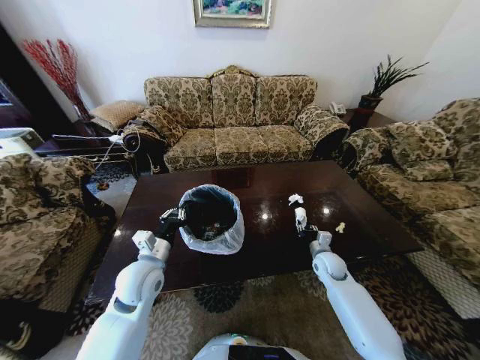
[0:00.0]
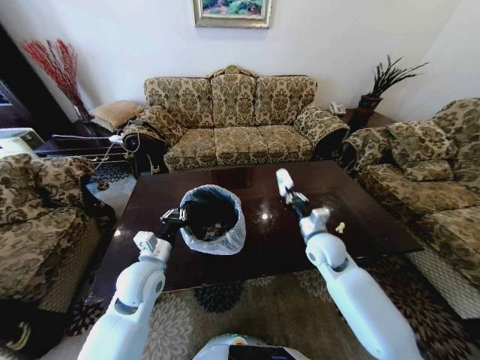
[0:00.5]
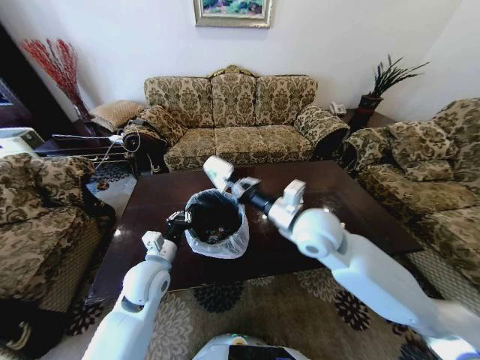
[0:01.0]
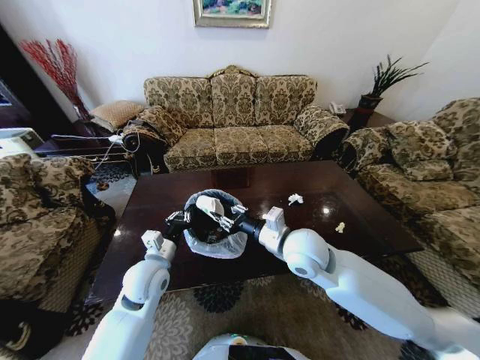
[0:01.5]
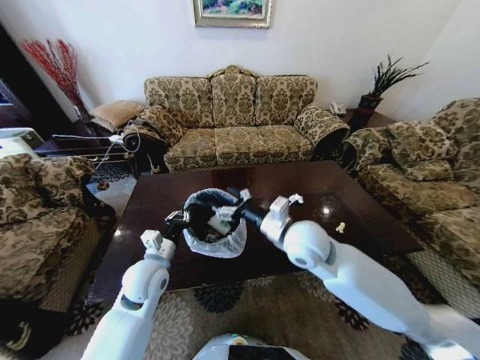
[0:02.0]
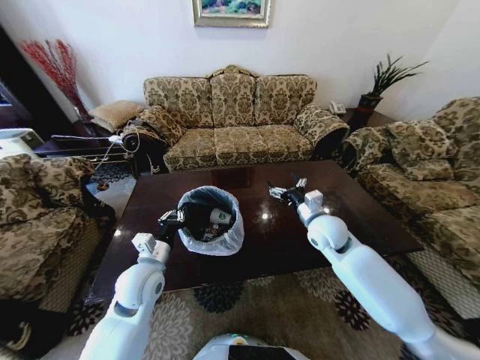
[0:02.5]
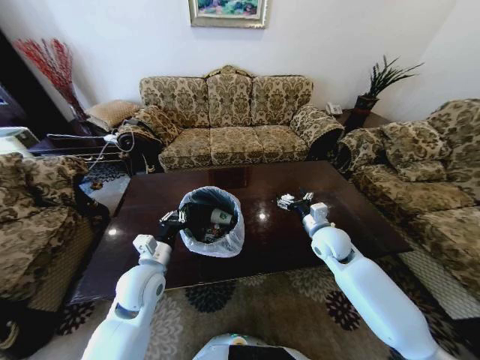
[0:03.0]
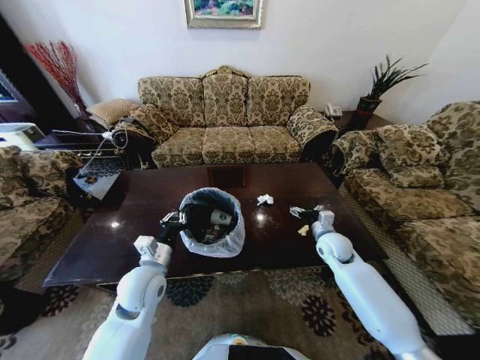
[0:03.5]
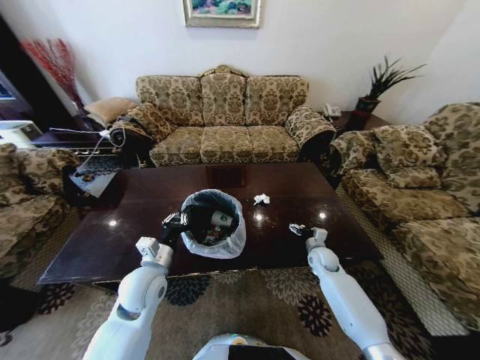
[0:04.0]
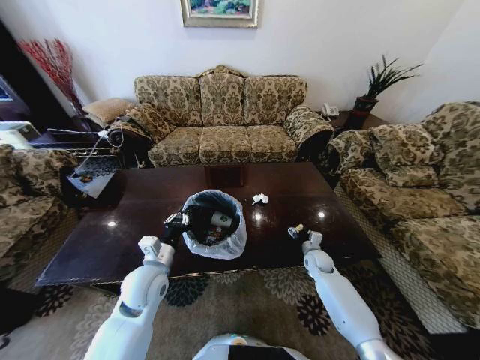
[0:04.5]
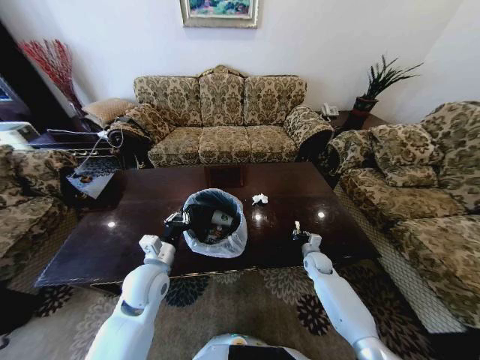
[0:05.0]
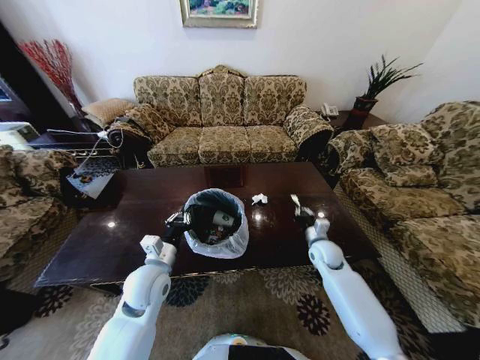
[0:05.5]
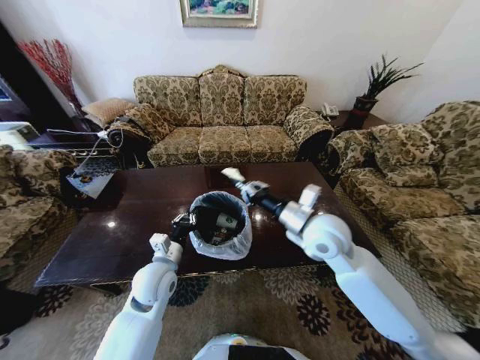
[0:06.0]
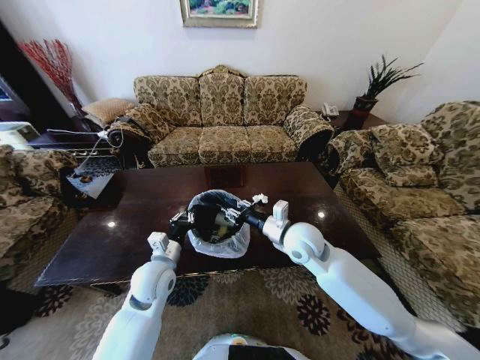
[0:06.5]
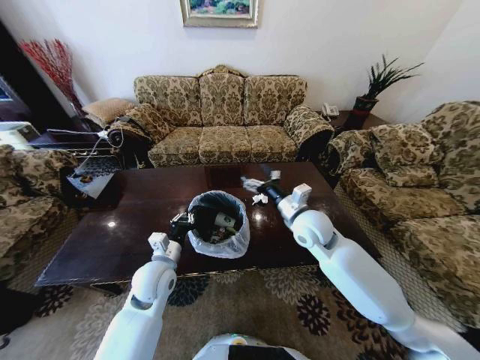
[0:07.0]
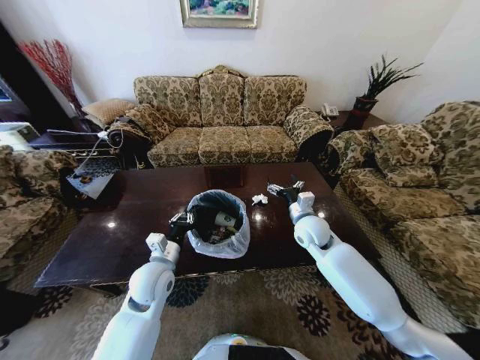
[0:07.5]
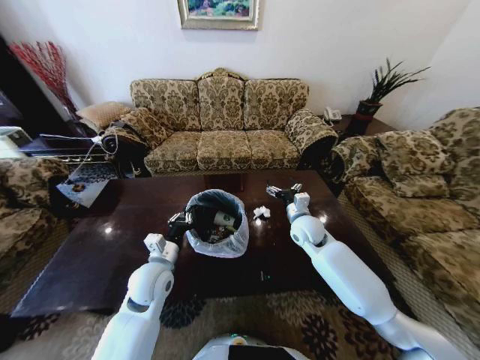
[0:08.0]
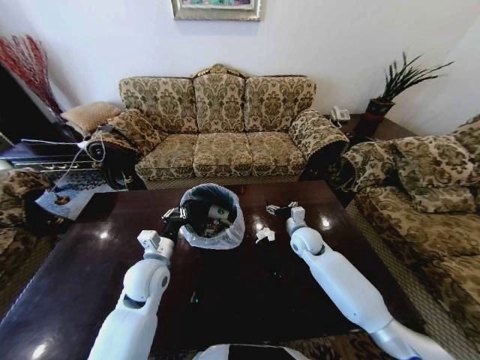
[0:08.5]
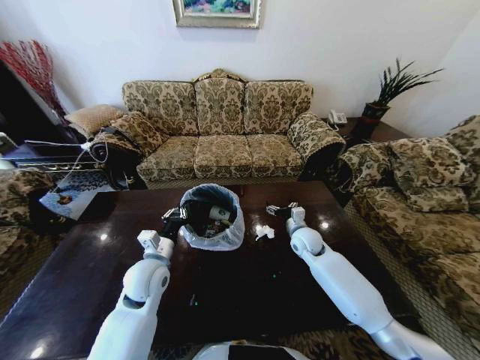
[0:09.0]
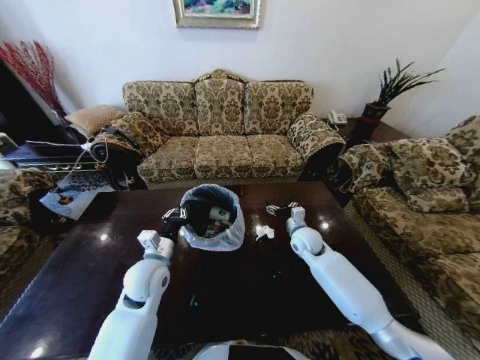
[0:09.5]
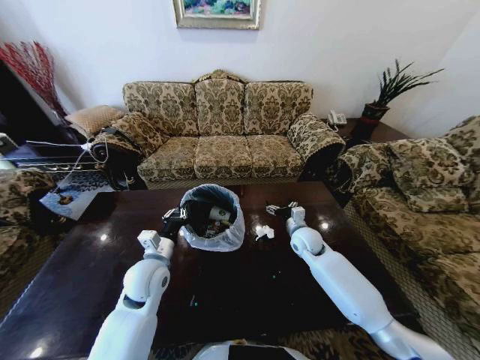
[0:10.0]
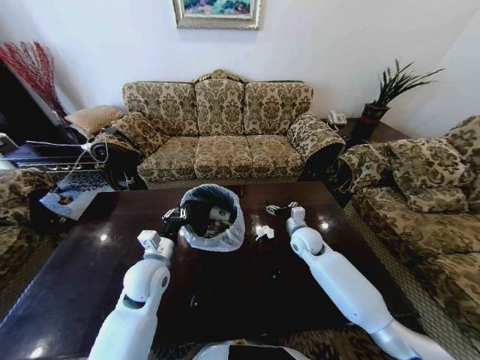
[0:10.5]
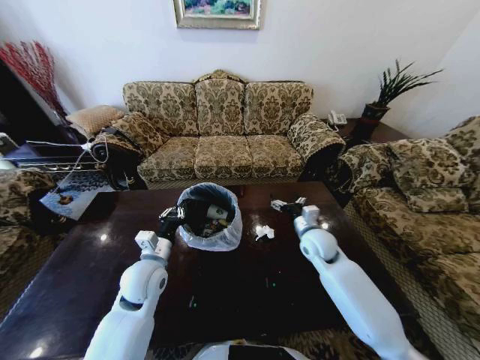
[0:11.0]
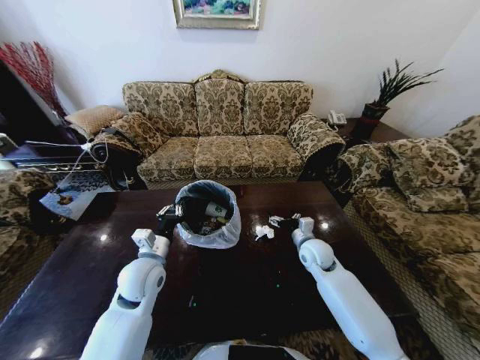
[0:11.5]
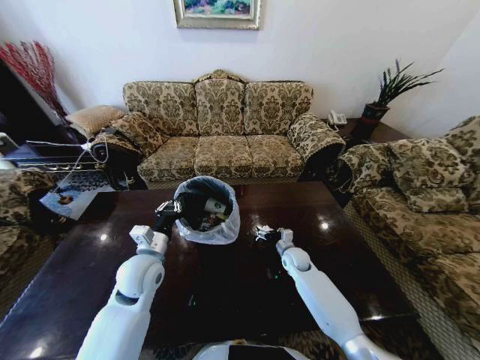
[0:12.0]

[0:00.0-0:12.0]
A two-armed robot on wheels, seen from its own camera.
Task of the whole recording: Move to the front of the table and place the trash on the table into the trash bin.
0:00.0 to 0:02.0: The right gripper goes some 30 cm upward and to the left, and opens its fingers.
0:02.0 to 0:04.0: The right gripper is displaced downward and to the right by approximately 35 cm.
0:04.0 to 0:06.0: The right gripper shifts some 30 cm upward and to the left, and closes up.
0:06.0 to 0:08.0: The right gripper heads downward and forward, covering roughly 15 cm, and opens up.
0:08.0 to 0:10.0: The right gripper goes approximately 5 cm downward.
0:10.0 to 0:12.0: The right gripper shifts about 10 cm downward.

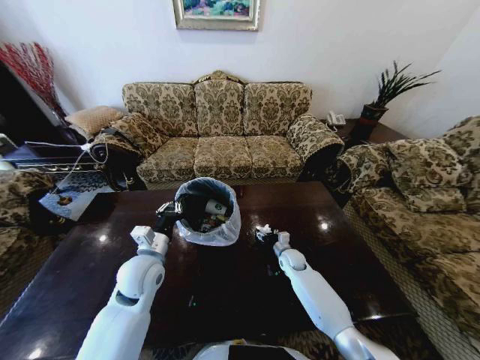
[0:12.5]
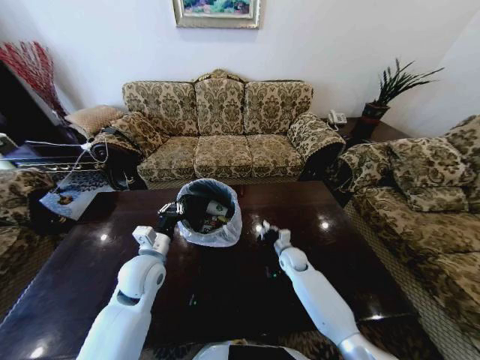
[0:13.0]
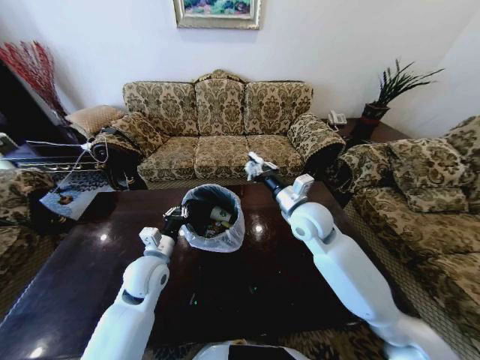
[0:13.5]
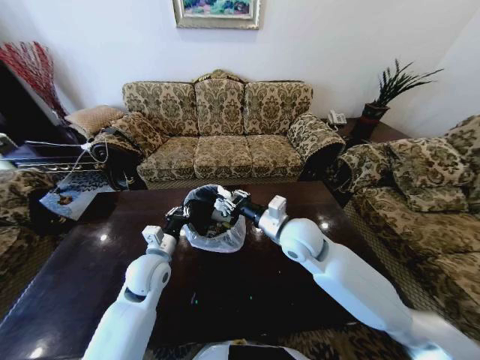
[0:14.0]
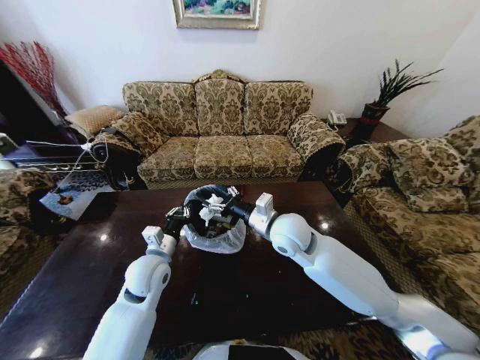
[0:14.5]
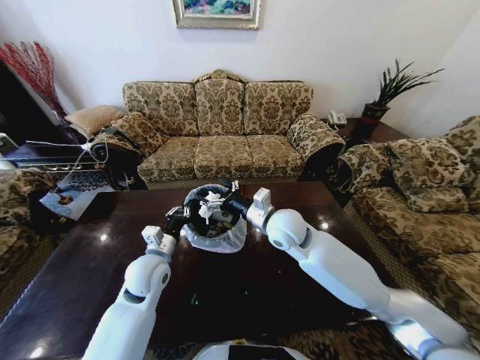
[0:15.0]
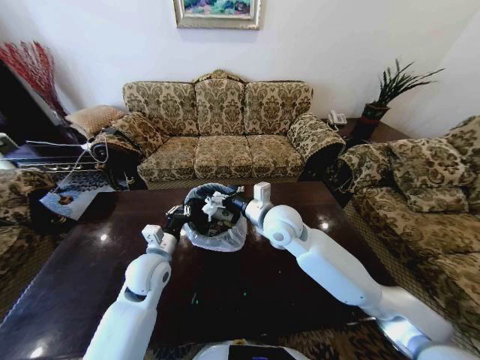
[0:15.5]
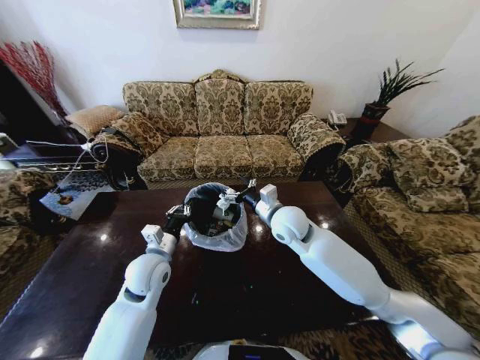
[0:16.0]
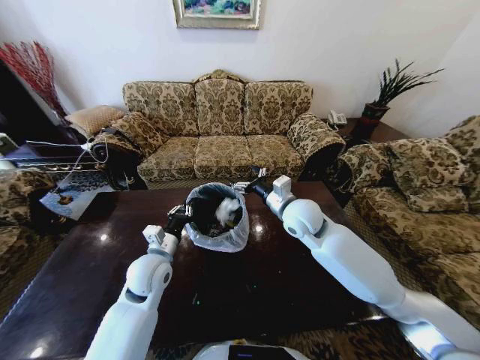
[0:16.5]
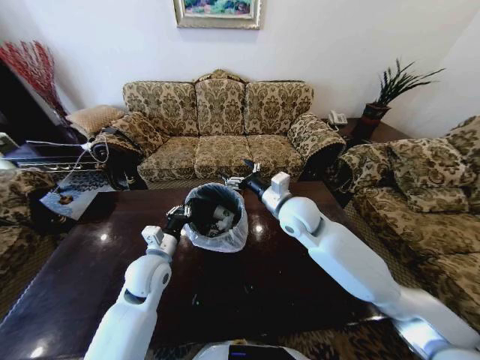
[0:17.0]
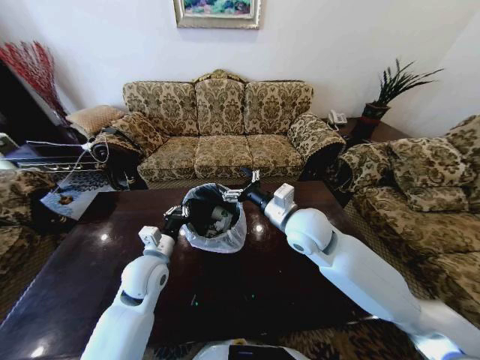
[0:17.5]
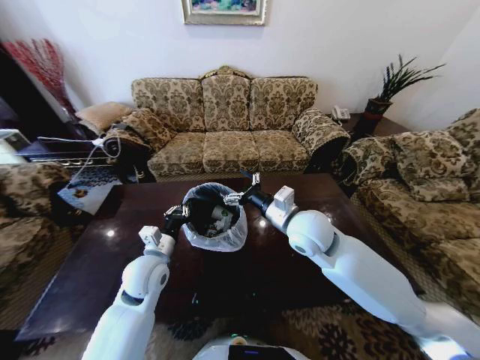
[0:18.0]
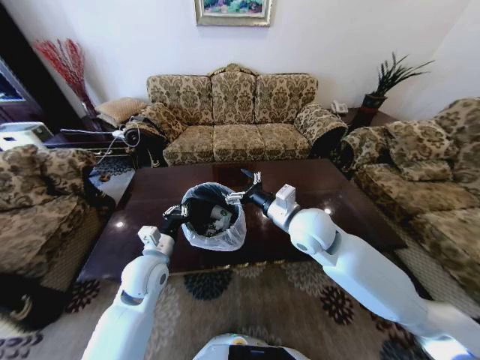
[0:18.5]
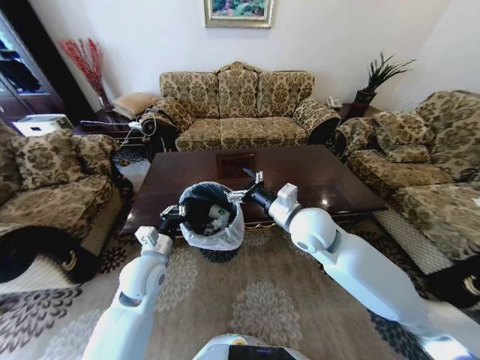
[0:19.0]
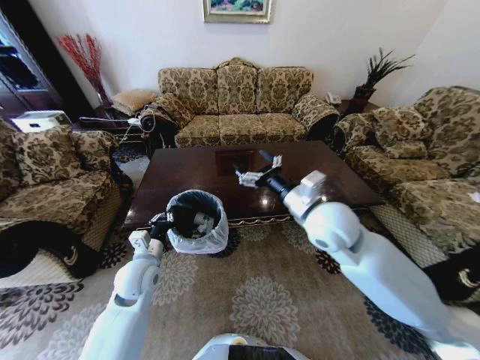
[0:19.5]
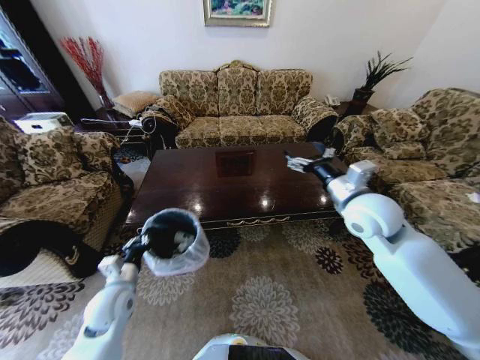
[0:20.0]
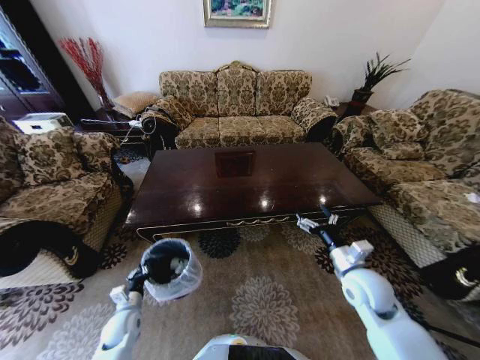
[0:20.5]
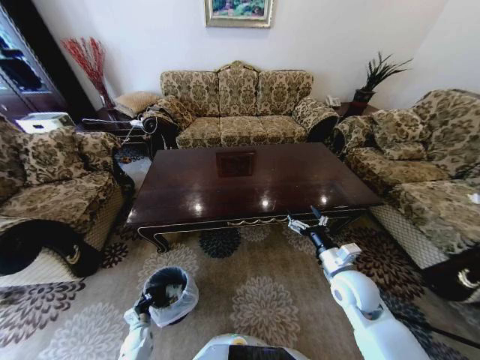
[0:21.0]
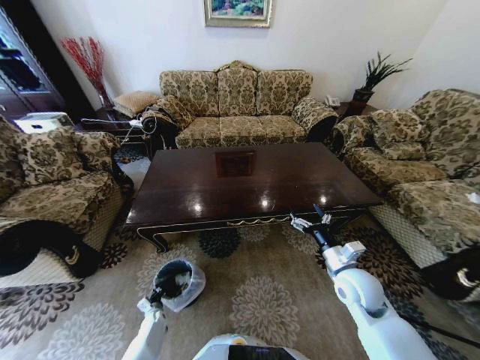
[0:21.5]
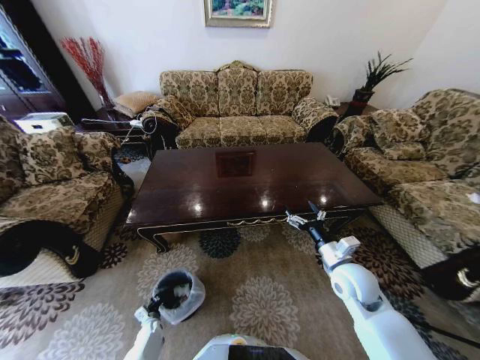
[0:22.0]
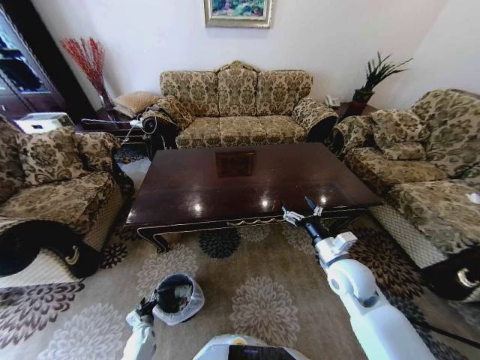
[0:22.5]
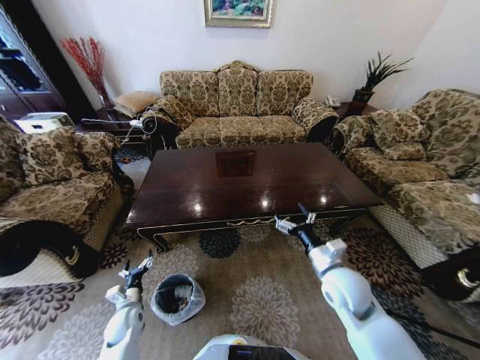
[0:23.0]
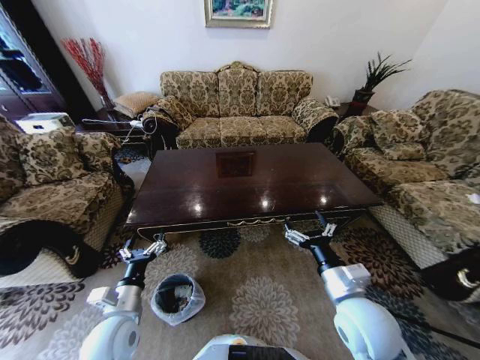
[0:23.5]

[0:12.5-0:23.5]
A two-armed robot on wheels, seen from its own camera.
Task of the whole recording: Move to the front of the table and place the trash on the table into the trash bin.
0:12.5 to 0:14.5: The right gripper travels upward by approximately 30 cm, and closes, then opens again.
0:16.0 to 0:18.0: The right gripper moves backward, about 5 cm.
0:18.0 to 0:20.0: The left gripper moves to the left, downward and backward, roughly 15 cm, while the right gripper heads to the right, covering about 15 cm.
0:20.0 to 0:21.5: The right gripper is displaced downward and backward by roughly 20 cm. Meanwhile the left gripper travels downward by about 35 cm.
0:21.5 to 0:23.5: The left gripper shifts approximately 35 cm upward, and opens. The right gripper heads backward, to the left and upward, covering approximately 10 cm.
